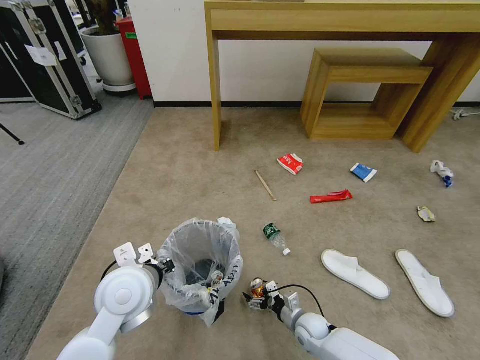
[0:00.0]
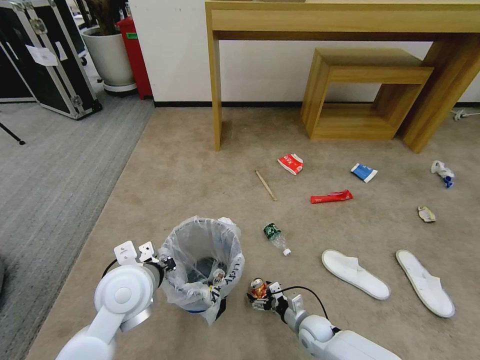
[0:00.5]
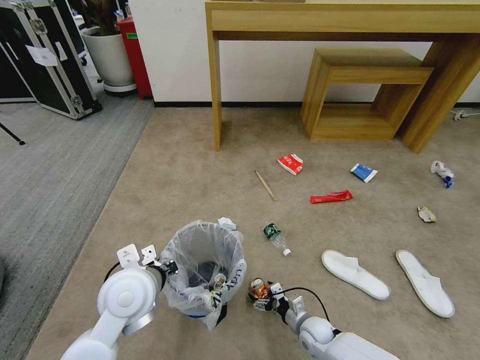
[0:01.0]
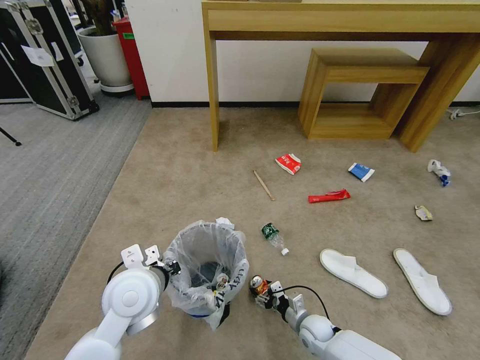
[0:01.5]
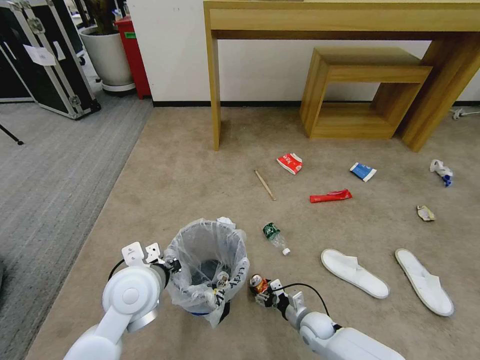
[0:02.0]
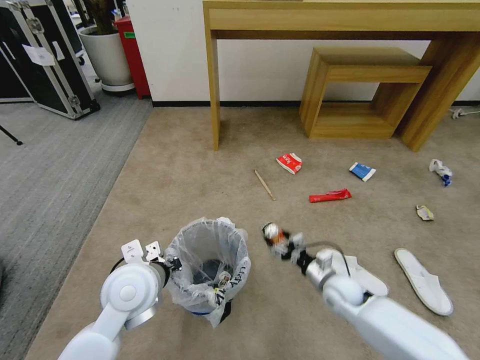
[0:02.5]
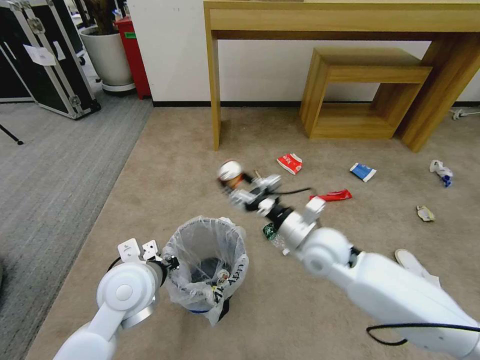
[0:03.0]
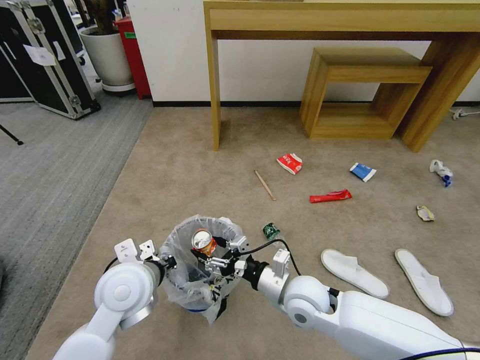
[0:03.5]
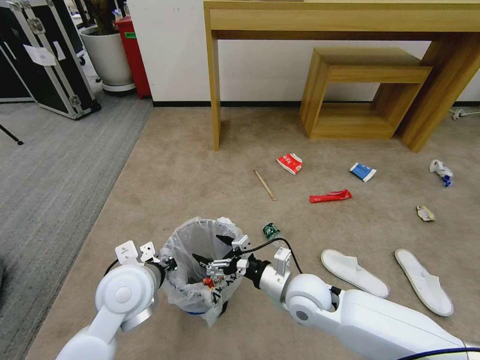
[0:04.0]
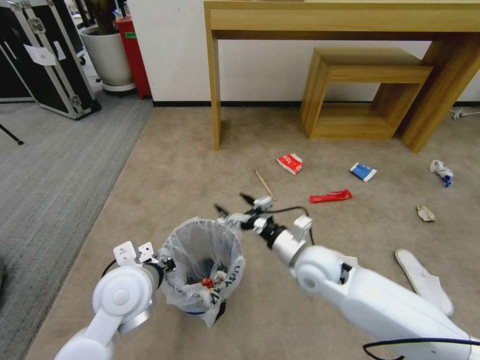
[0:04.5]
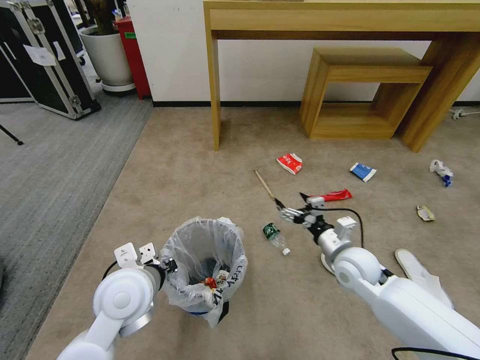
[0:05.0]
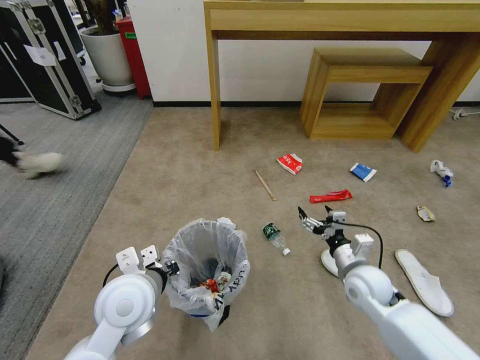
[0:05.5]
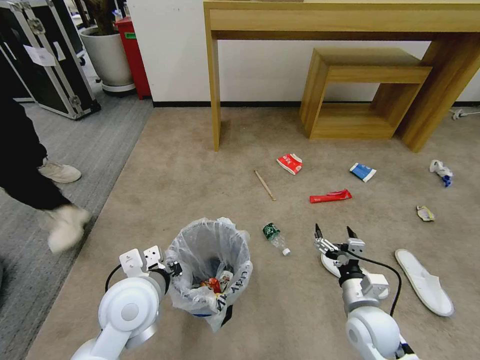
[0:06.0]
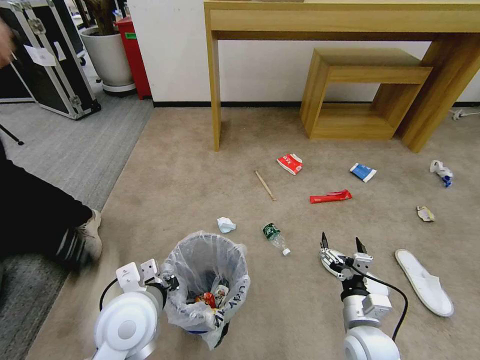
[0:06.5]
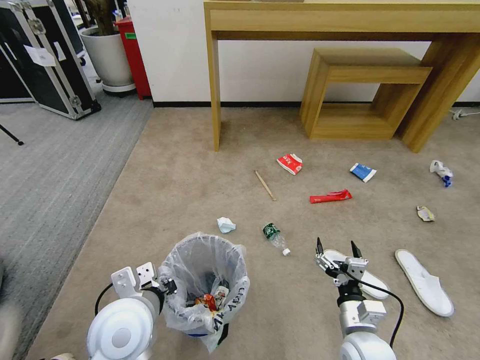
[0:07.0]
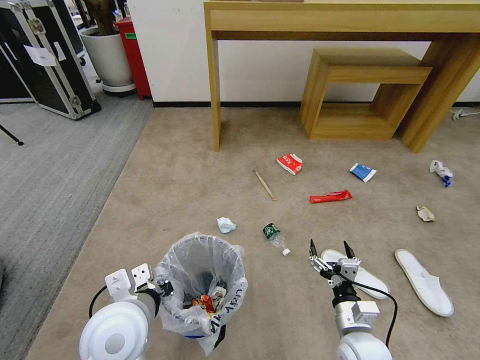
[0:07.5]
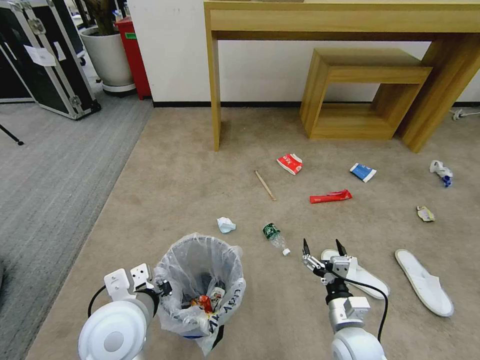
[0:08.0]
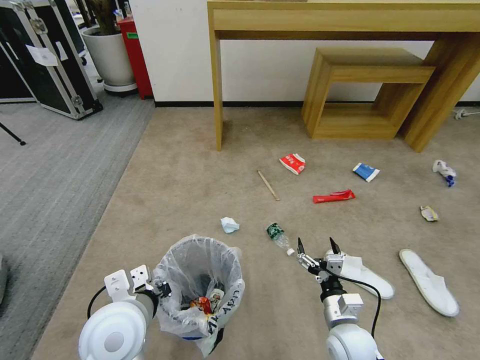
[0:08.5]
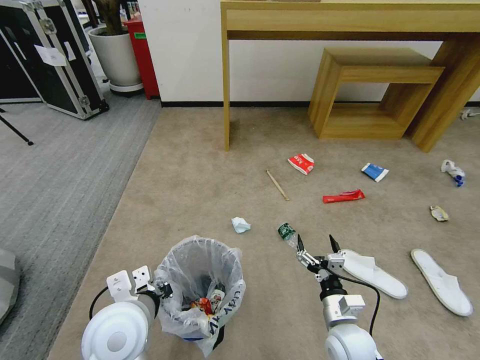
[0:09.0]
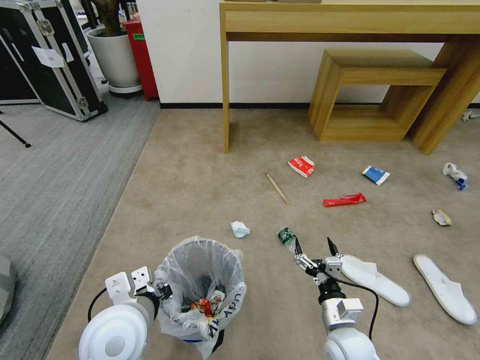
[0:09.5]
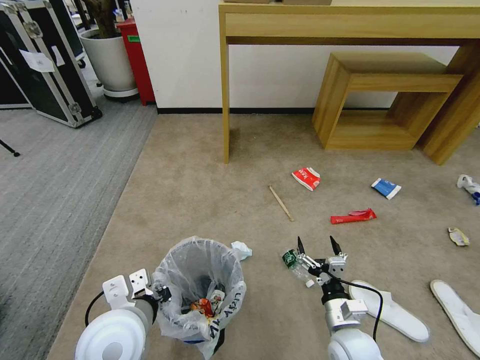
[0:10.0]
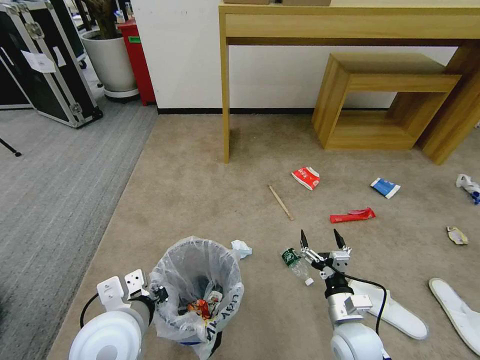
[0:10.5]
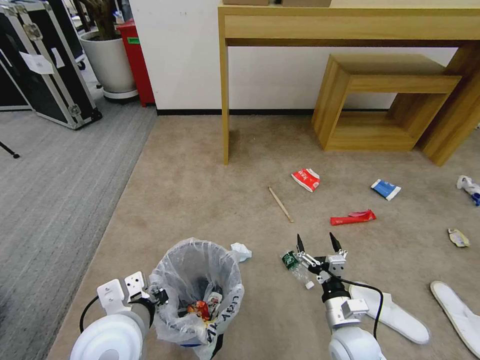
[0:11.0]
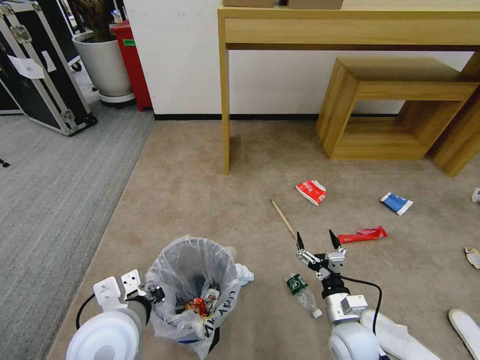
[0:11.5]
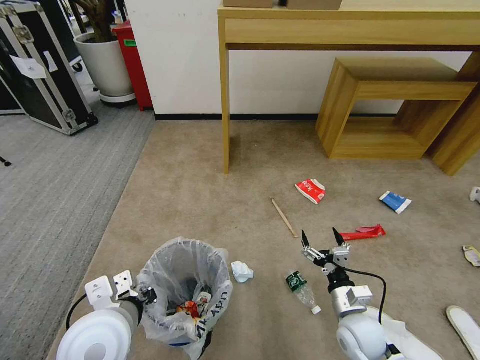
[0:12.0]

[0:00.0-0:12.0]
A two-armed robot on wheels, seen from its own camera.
Task of the whole recording: Pick up the trash bin and place the garbage on the floor into it.
0:00.0 to 0:02.0: The grippers stay close to where they were, moving slightly.
0:02.0 to 0:04.0: The right gripper is displaced upward by some 25 cm.
0:04.0 to 0:06.0: The right gripper shifts about 15 cm to the right.
0:06.0 to 0:08.0: The right gripper ends up some 5 cm from where it was.

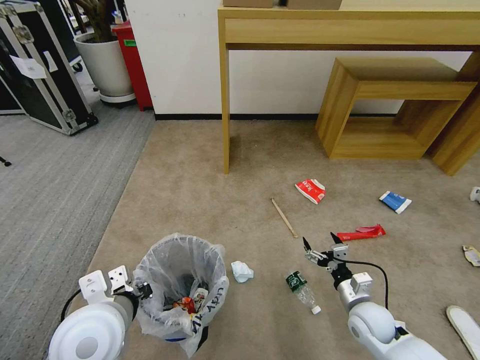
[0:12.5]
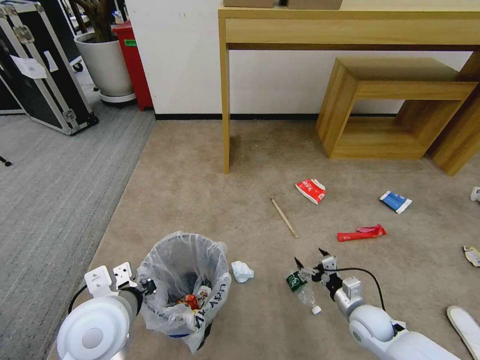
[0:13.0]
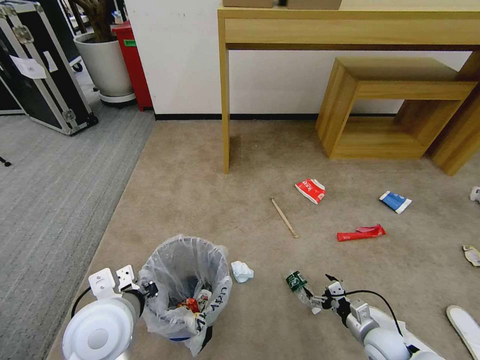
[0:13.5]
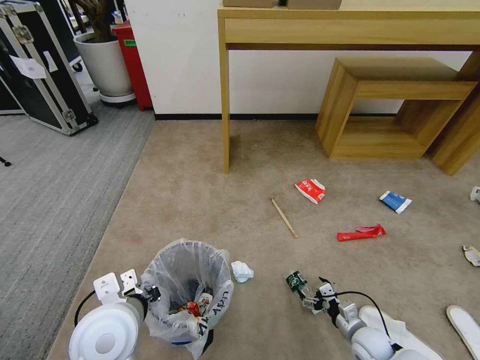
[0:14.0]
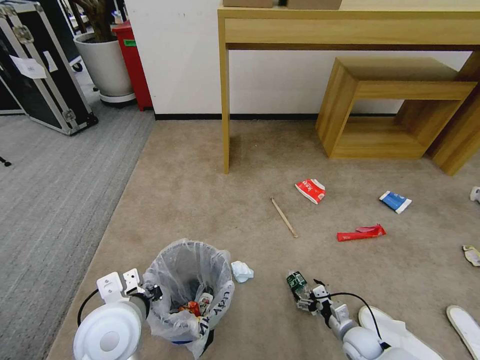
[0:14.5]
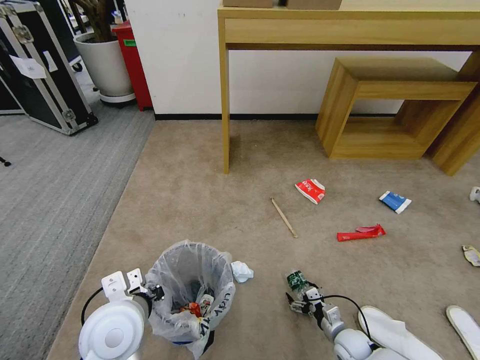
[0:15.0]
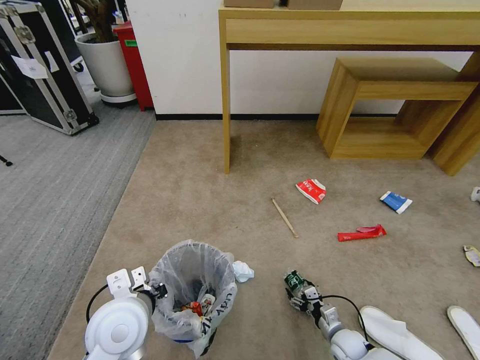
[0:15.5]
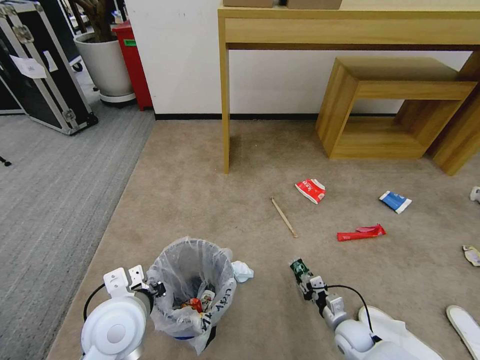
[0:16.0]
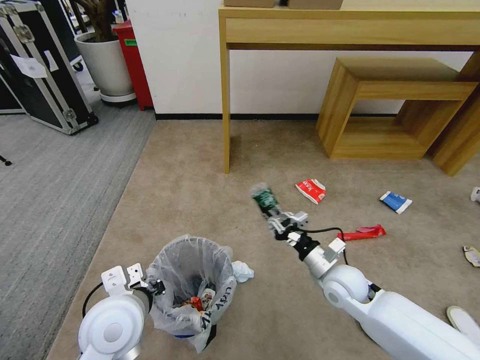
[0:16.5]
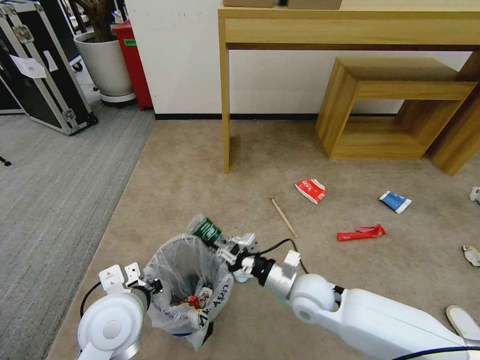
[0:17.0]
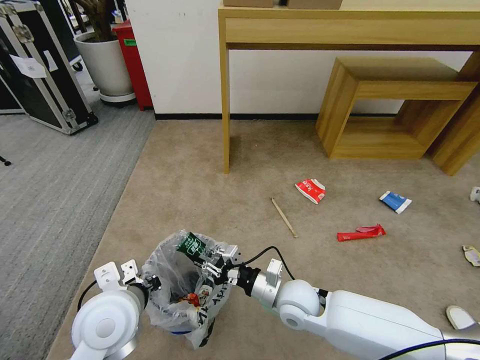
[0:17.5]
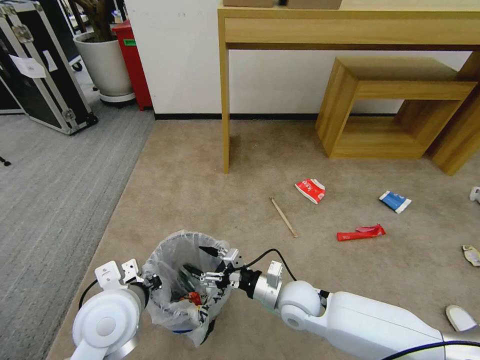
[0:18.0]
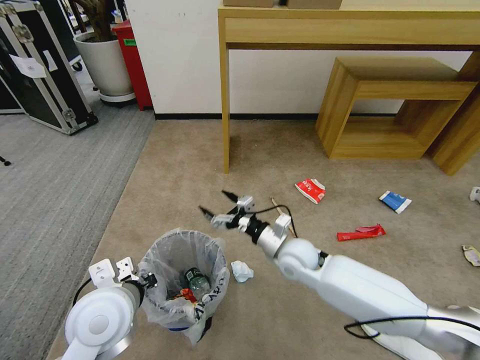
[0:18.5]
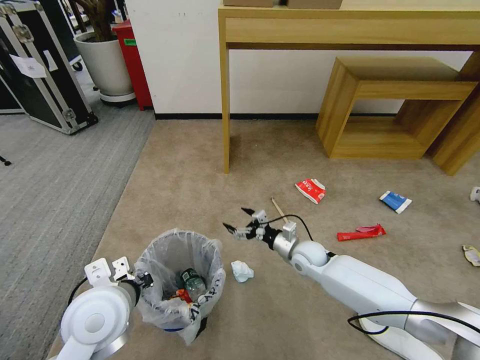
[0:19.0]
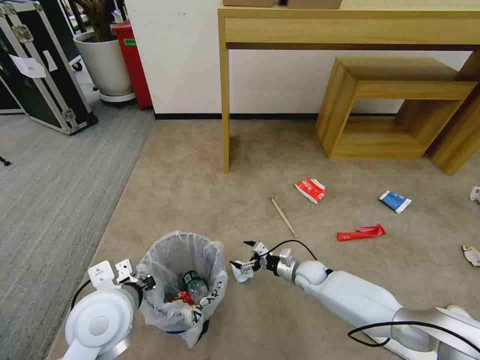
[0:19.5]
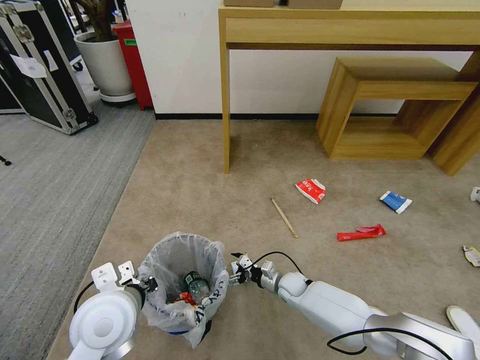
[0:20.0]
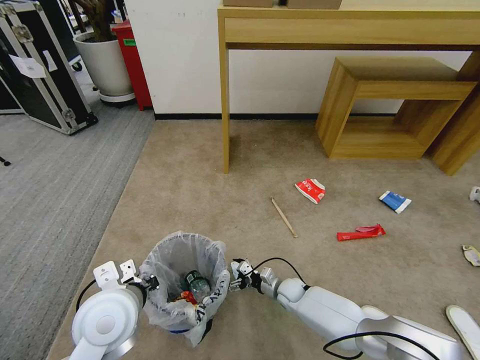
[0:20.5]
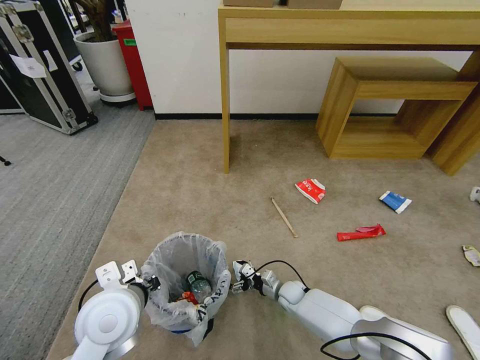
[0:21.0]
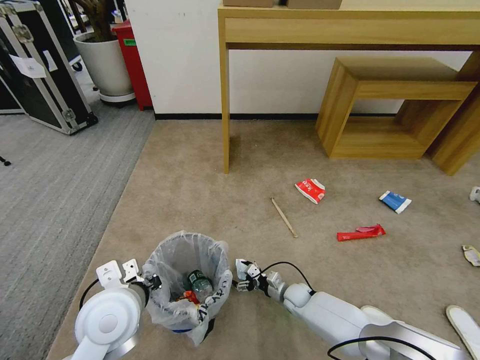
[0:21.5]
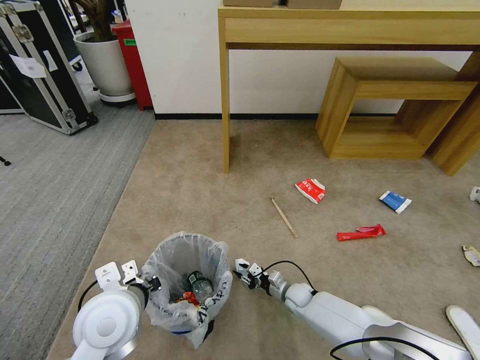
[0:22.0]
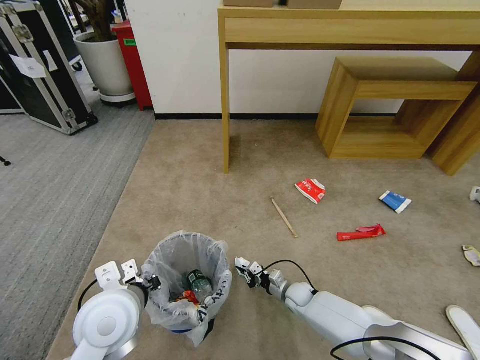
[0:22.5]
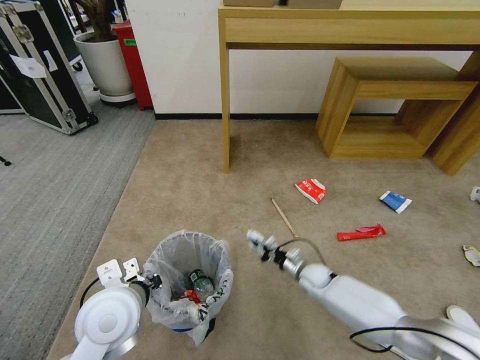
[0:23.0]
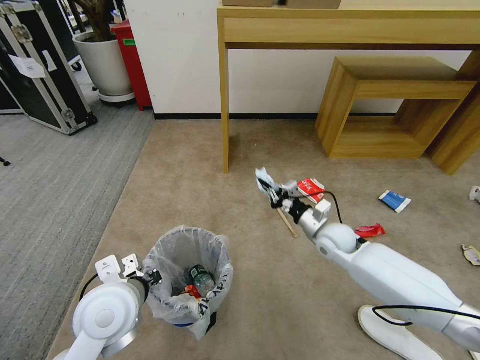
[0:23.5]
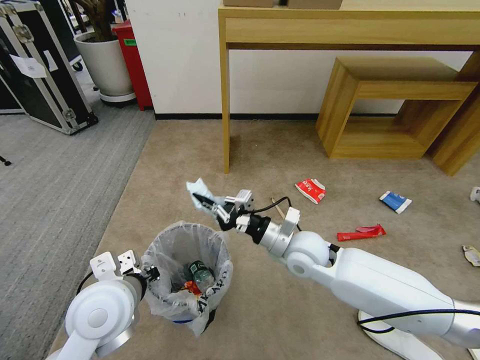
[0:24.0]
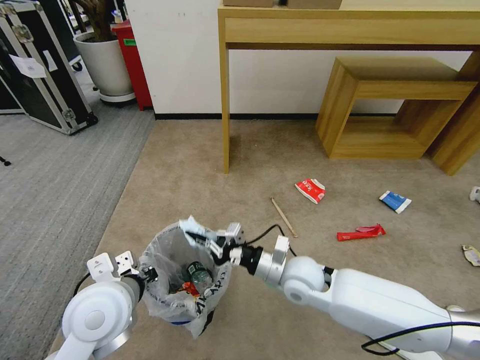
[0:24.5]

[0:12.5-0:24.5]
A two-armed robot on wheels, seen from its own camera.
Task of the whole recording: Pick up the trash bin and place the garbage on the floor into it.
0:12.5 to 0:14.5: The right gripper shifts approximately 10 cm downward.
0:14.5 to 0:16.5: The right gripper shifts some 25 cm upward, to the left and forward, and closes its fingers.
0:16.5 to 0:18.5: The right gripper heads to the left, covering some 10 cm, and opens.
0:18.5 to 0:20.5: The right gripper heads downward, covering approximately 25 cm.
0:20.5 to 0:22.5: The right gripper closes.
0:22.5 to 0:24.5: The right gripper travels upward by about 25 cm.

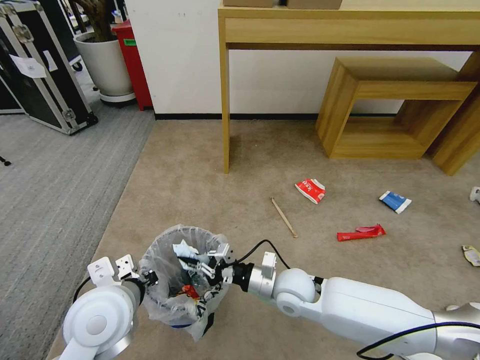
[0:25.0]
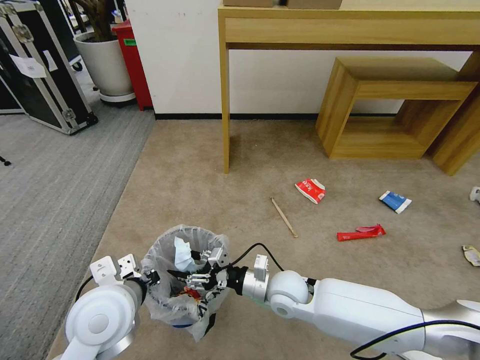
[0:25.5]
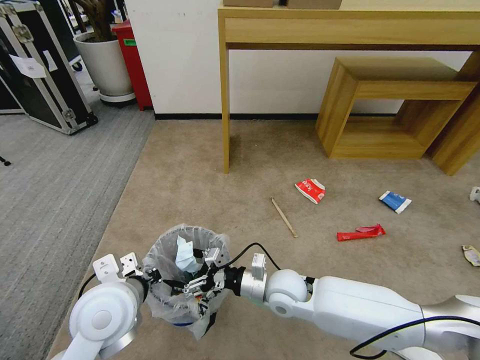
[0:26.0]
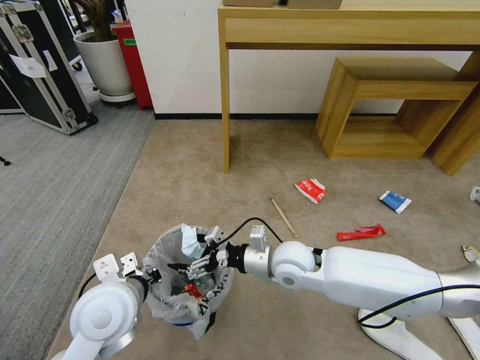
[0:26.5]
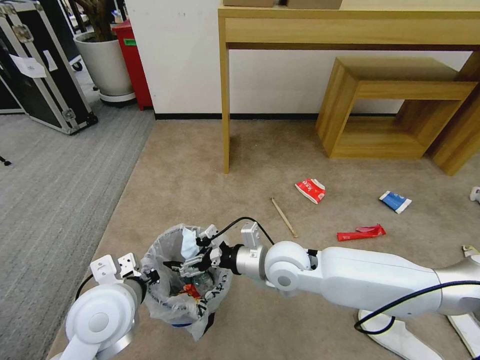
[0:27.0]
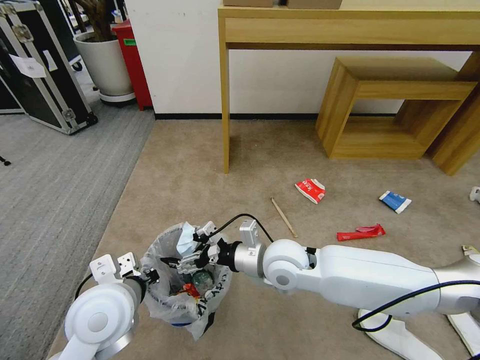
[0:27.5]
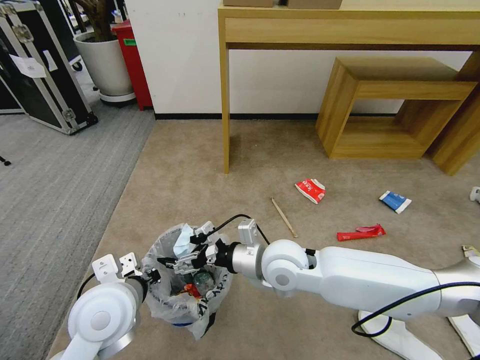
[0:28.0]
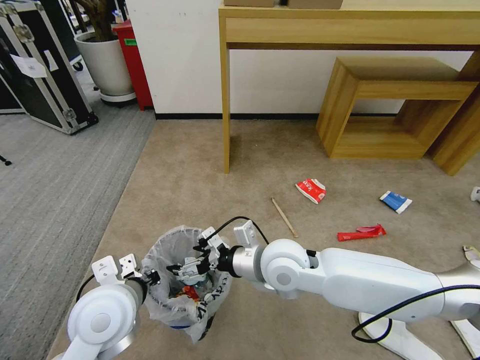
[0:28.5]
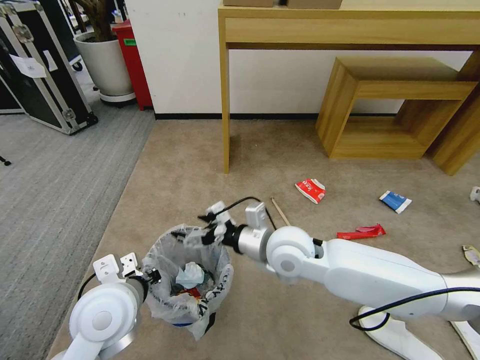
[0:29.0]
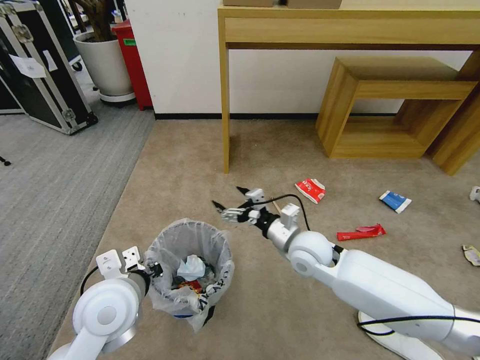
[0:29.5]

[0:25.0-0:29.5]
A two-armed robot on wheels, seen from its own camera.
Task of the whole recording: Pick up the trash bin and place the garbage on the floor into it.
0:25.0 to 0:27.0: The right gripper moves upward, about 10 cm, and opens up.
0:27.0 to 0:29.5: The right gripper shifts some 5 cm to the right.
